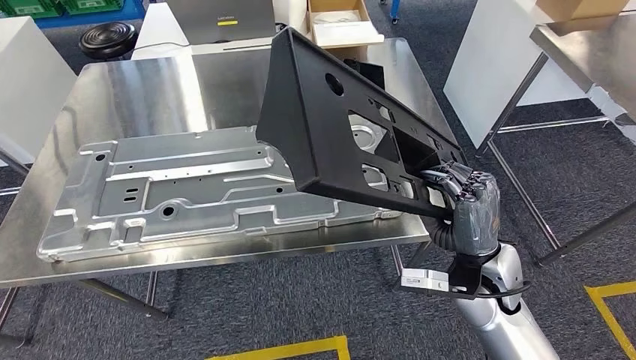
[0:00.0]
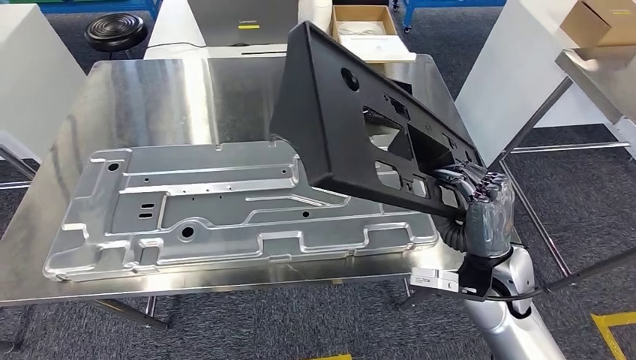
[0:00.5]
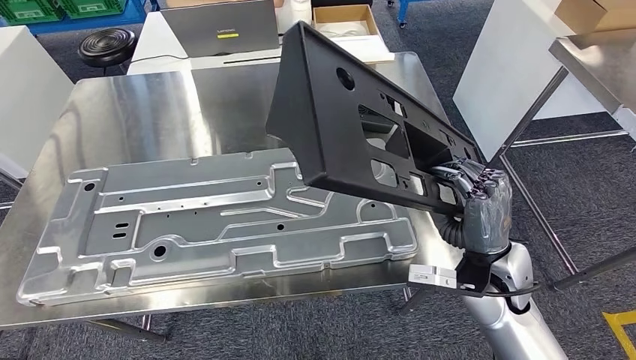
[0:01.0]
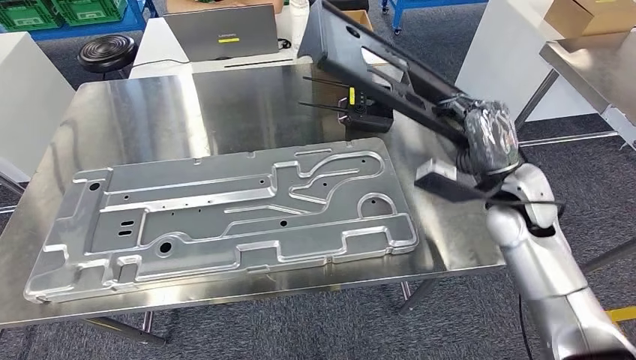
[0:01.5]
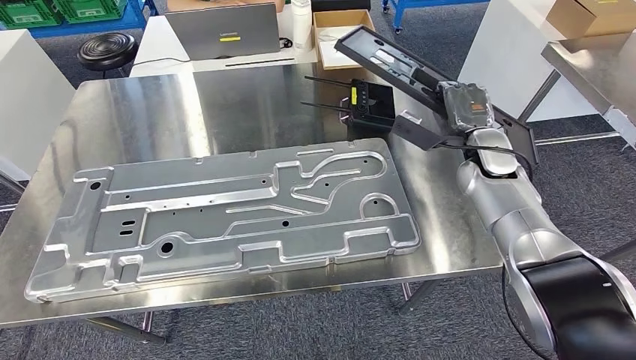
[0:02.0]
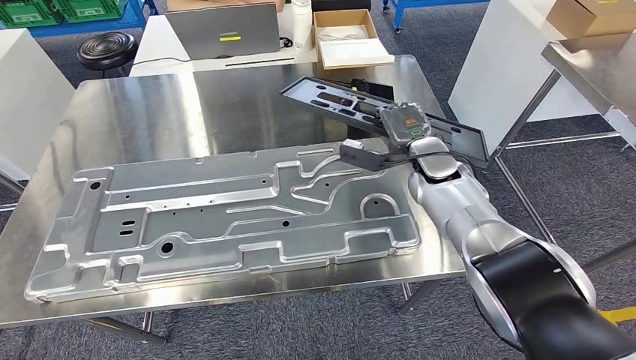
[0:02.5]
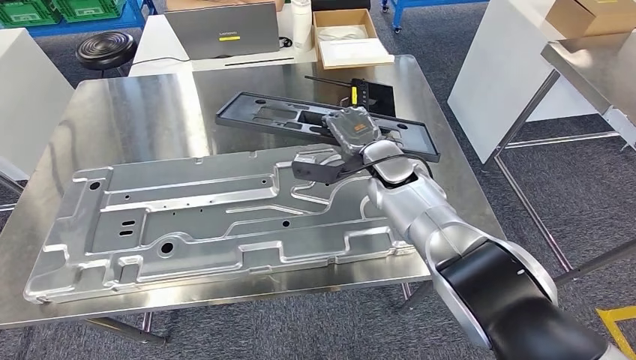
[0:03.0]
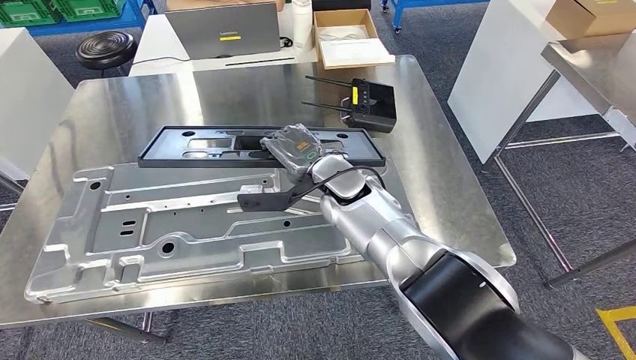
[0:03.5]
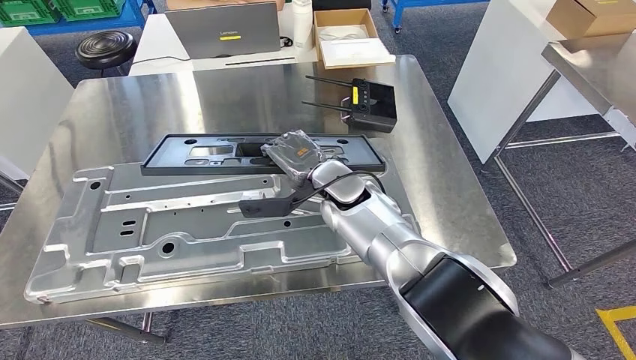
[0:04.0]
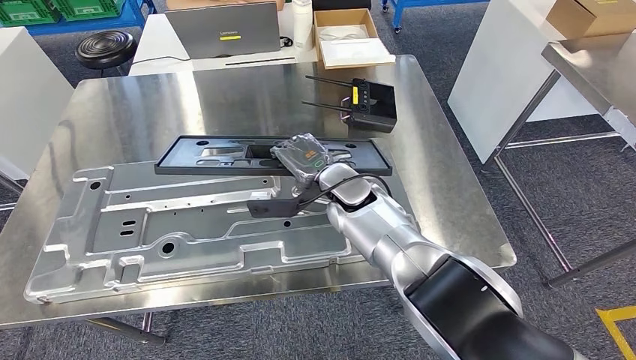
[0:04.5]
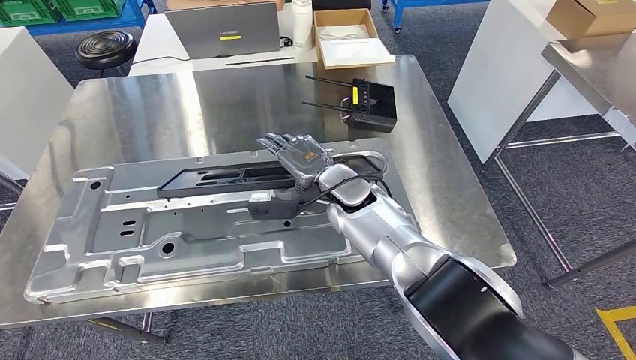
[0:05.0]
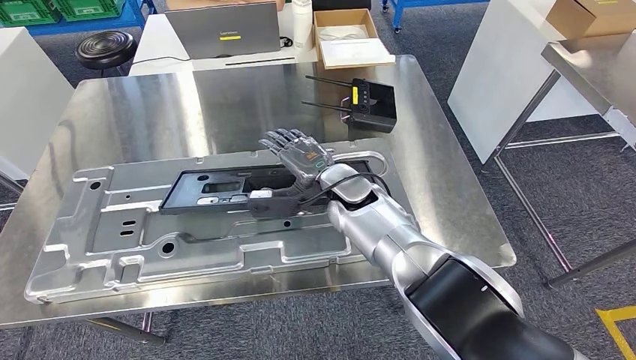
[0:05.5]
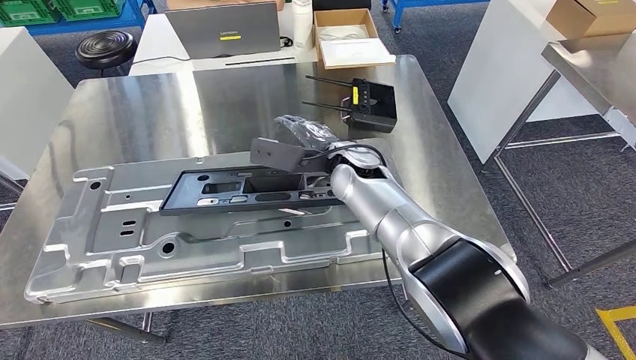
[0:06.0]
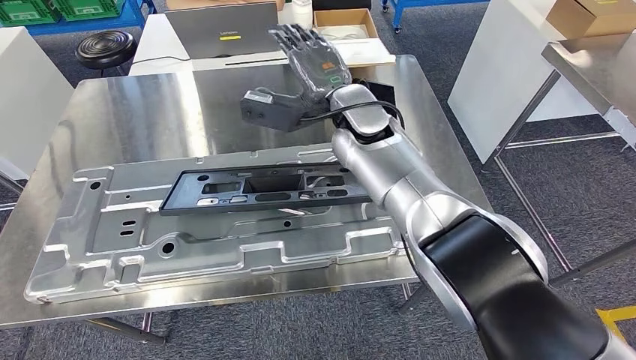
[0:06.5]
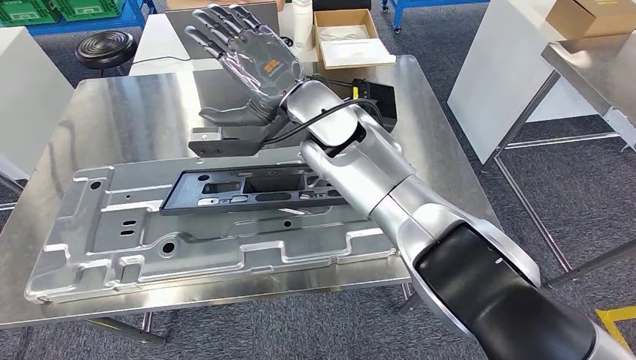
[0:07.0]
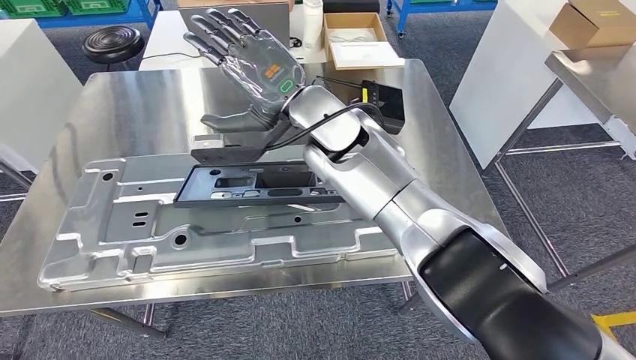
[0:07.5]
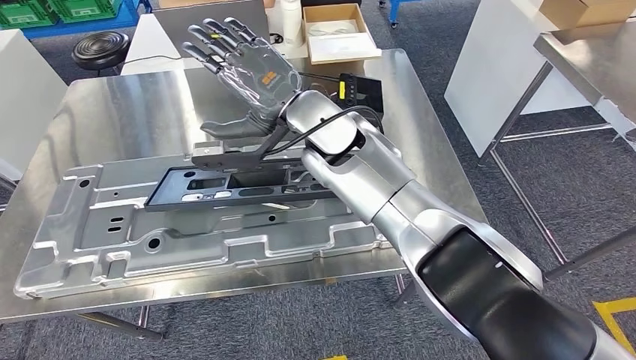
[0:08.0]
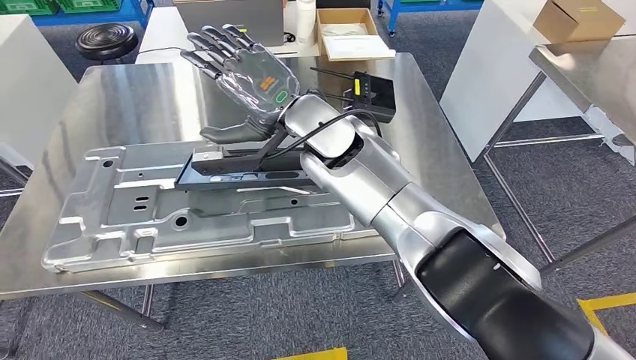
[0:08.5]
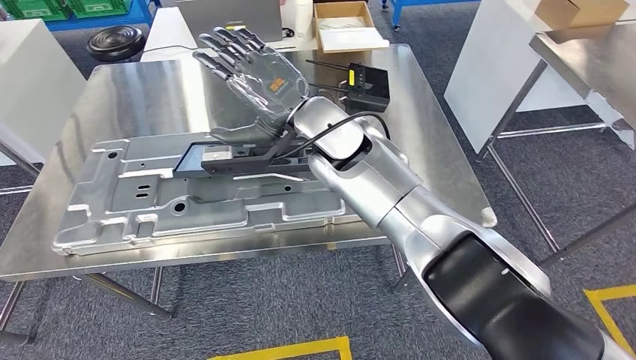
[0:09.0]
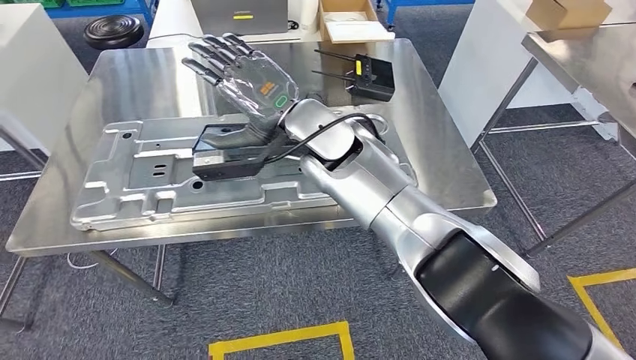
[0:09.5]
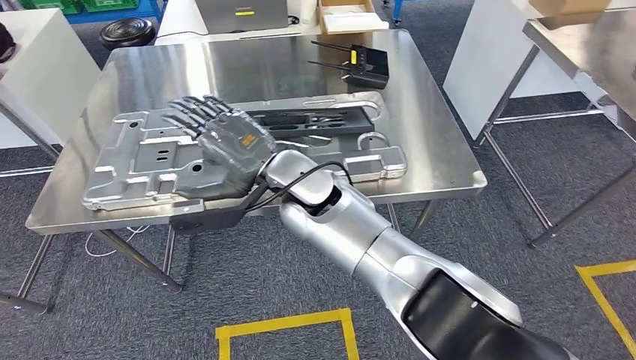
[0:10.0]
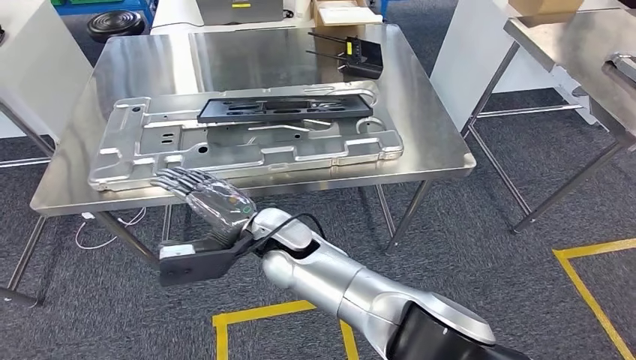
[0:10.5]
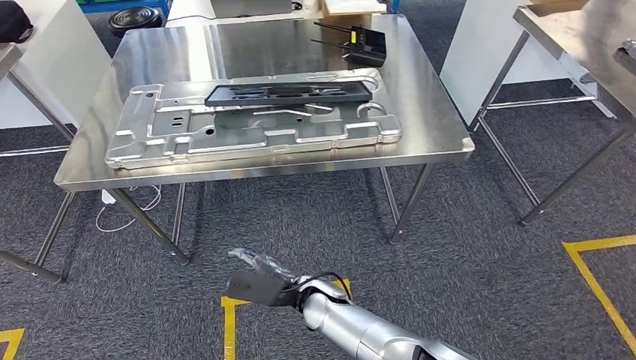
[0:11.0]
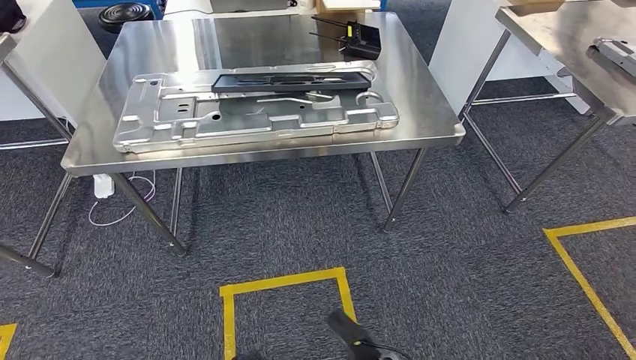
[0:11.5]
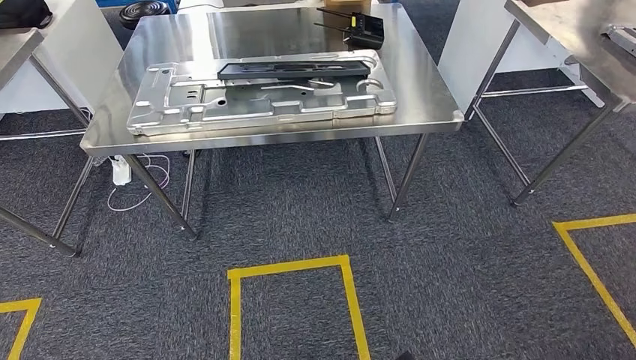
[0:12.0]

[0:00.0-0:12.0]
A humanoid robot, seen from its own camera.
Step, 0:00.0 to 0:06.5: Insert the large material into the corresponding slot on the workbench.

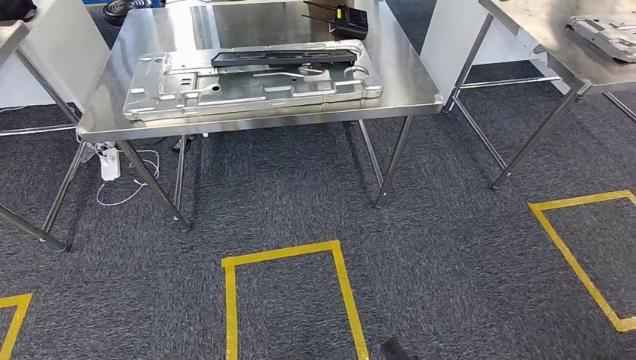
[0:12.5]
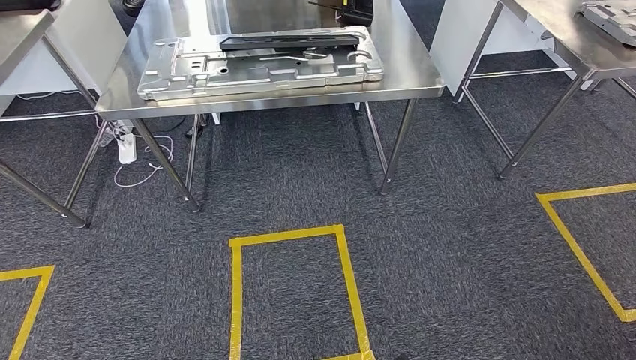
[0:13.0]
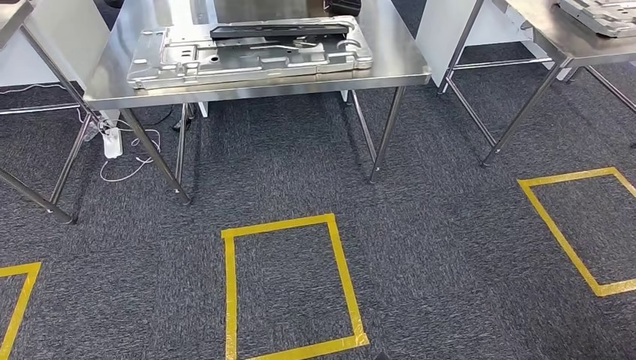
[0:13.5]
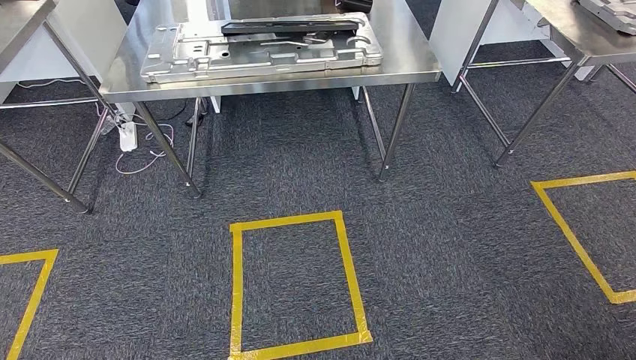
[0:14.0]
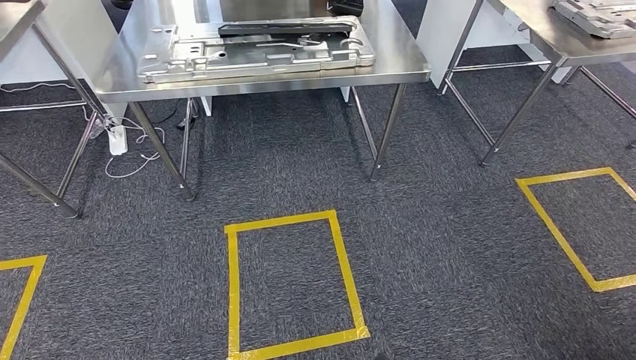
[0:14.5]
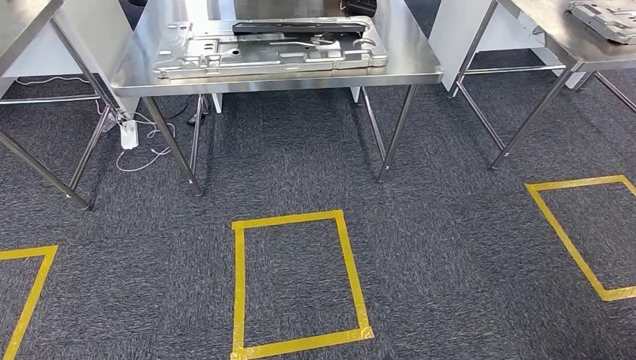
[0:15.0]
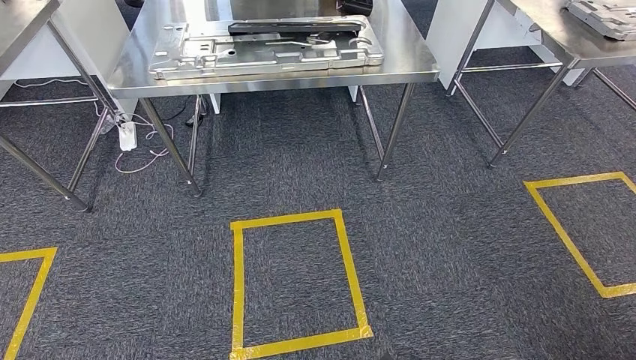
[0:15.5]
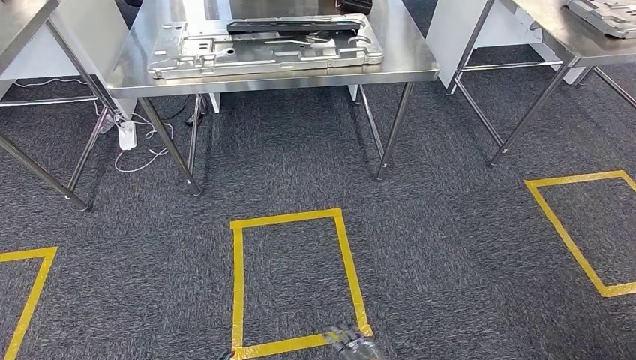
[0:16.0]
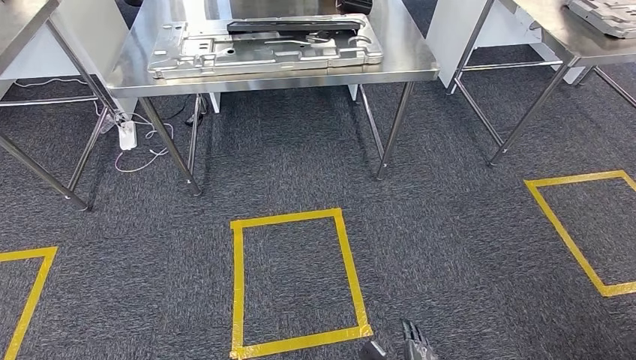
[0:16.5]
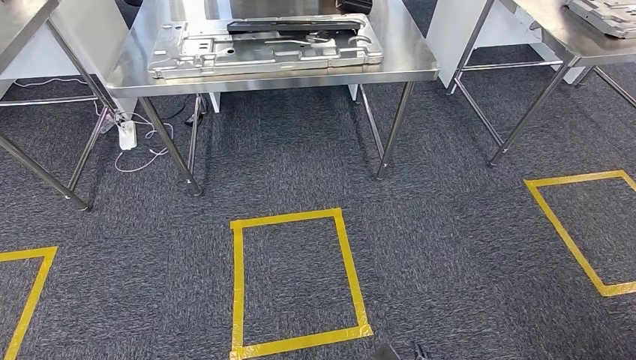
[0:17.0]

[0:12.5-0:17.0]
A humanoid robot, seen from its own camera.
Step, 0:12.5 to 0:17.0: Move to the initial position of the shelf.
